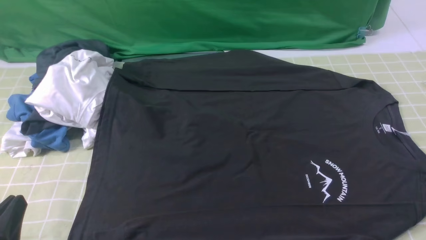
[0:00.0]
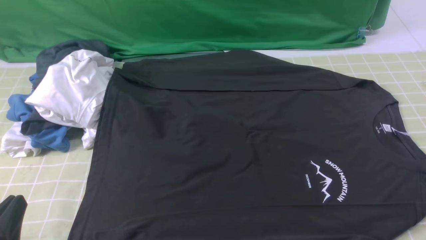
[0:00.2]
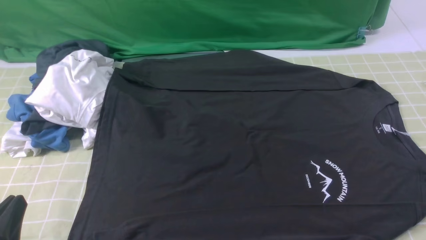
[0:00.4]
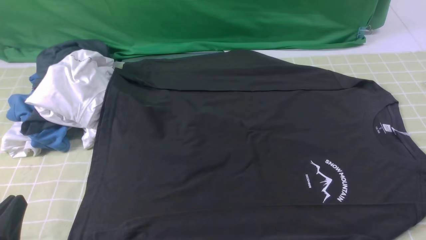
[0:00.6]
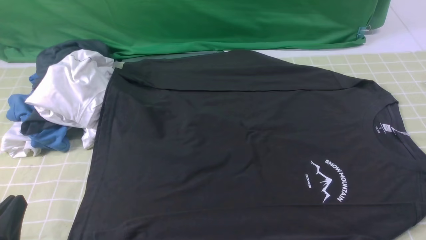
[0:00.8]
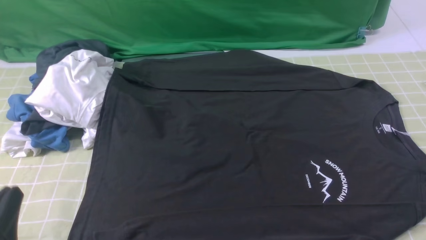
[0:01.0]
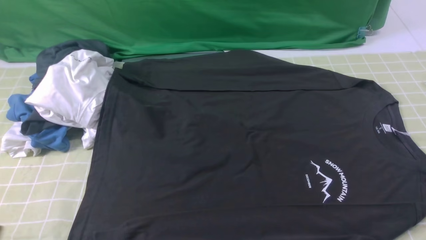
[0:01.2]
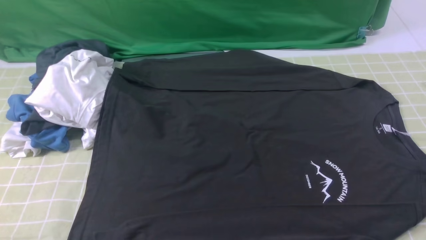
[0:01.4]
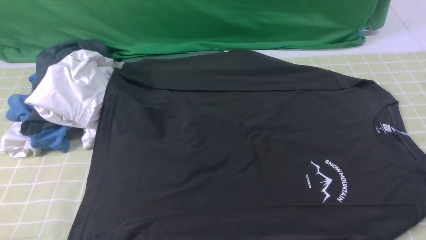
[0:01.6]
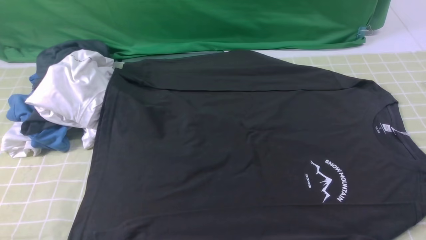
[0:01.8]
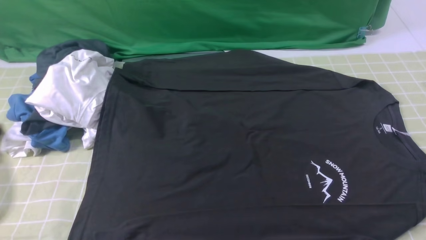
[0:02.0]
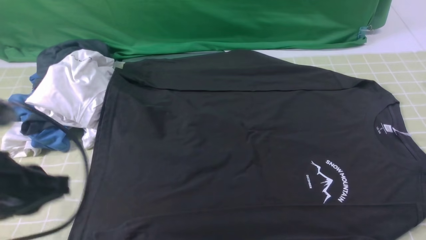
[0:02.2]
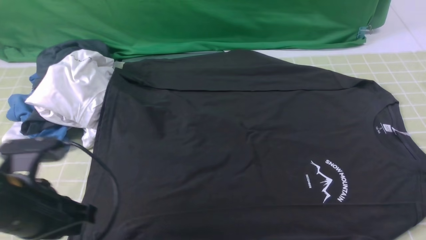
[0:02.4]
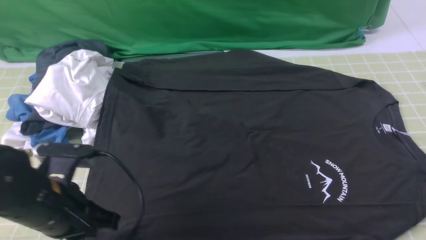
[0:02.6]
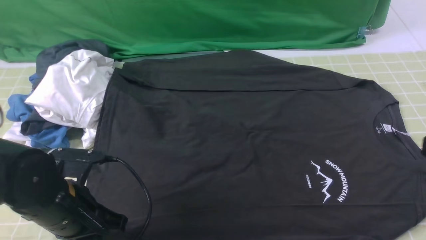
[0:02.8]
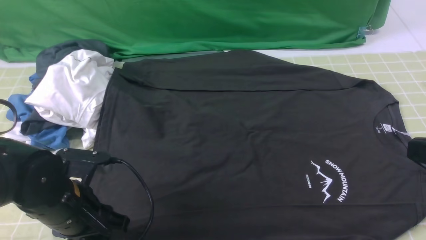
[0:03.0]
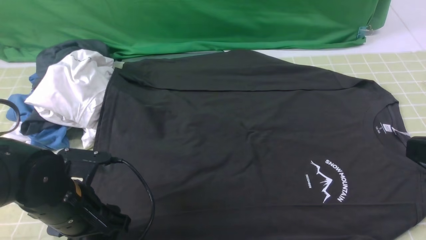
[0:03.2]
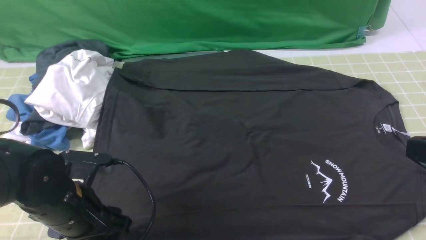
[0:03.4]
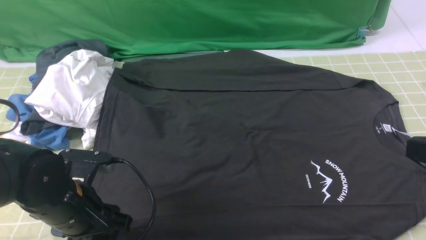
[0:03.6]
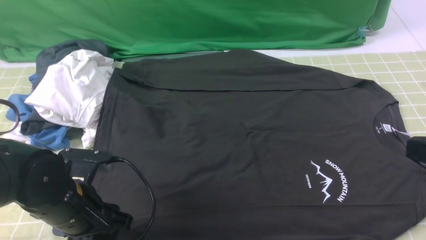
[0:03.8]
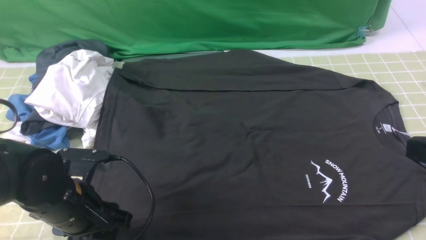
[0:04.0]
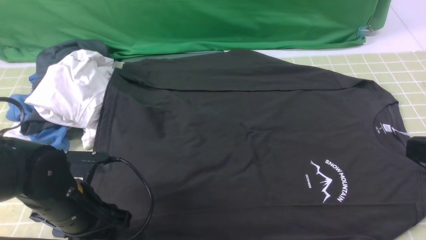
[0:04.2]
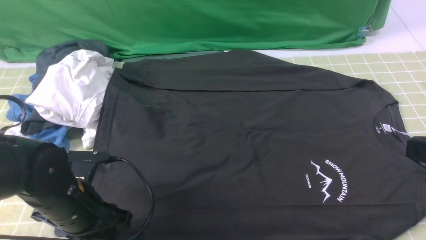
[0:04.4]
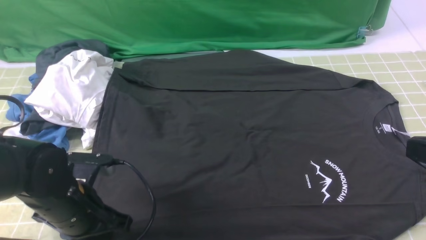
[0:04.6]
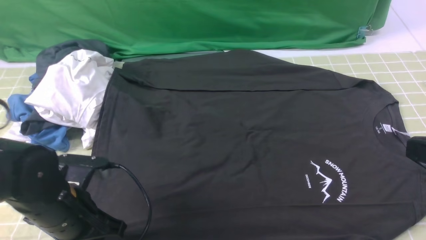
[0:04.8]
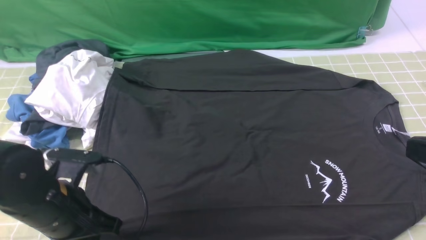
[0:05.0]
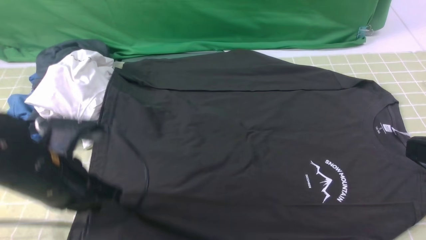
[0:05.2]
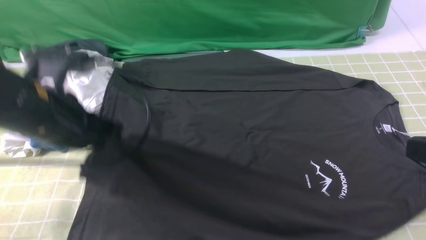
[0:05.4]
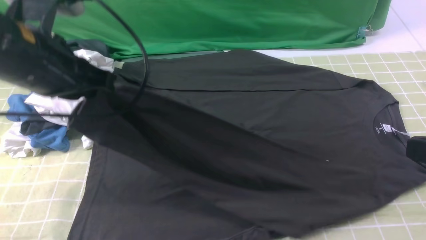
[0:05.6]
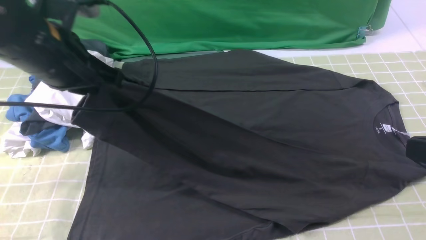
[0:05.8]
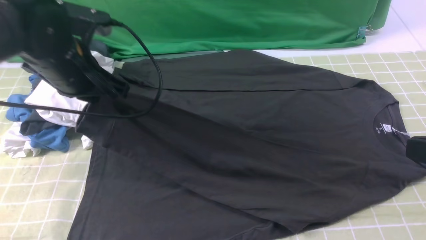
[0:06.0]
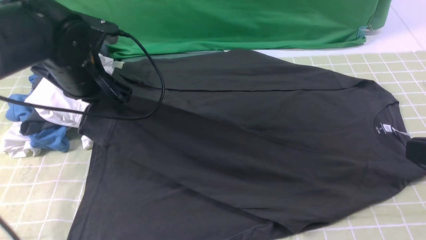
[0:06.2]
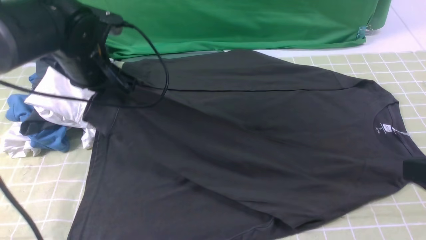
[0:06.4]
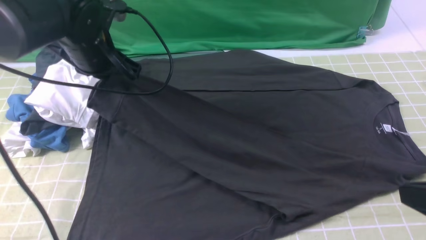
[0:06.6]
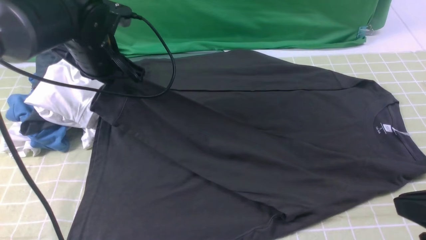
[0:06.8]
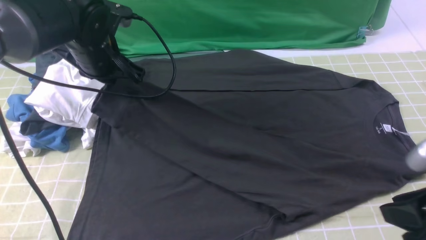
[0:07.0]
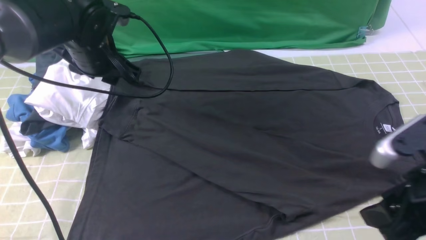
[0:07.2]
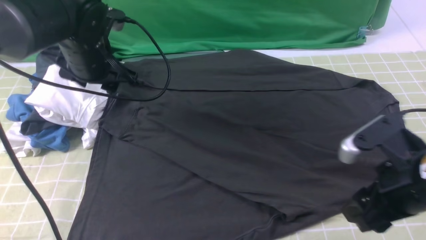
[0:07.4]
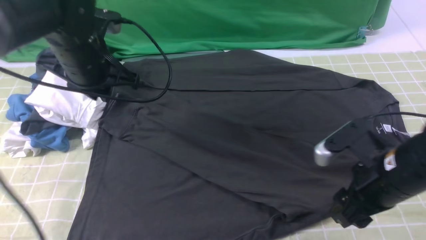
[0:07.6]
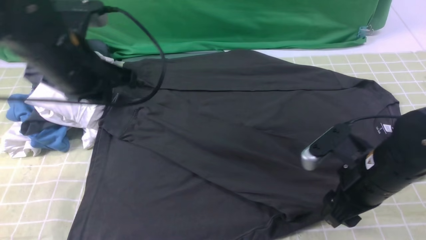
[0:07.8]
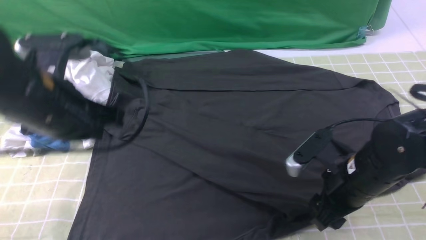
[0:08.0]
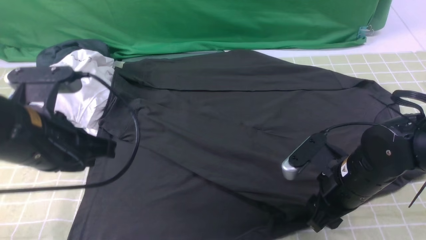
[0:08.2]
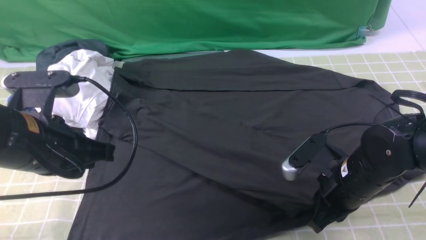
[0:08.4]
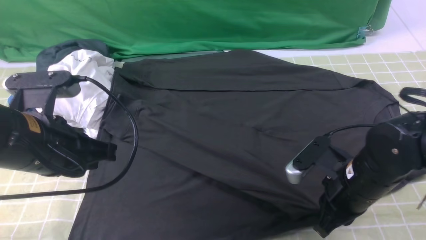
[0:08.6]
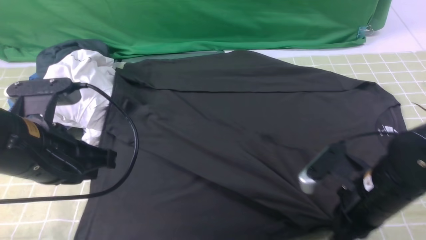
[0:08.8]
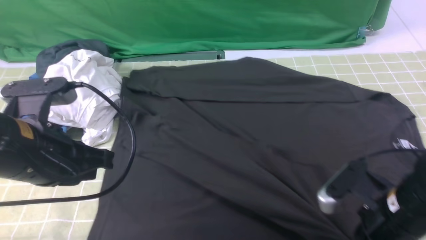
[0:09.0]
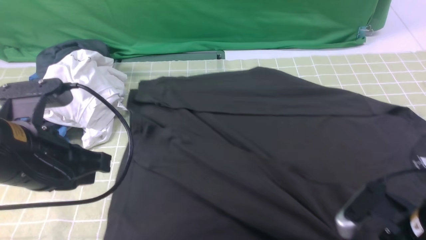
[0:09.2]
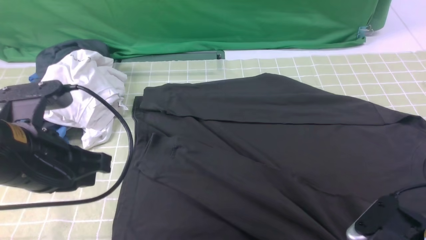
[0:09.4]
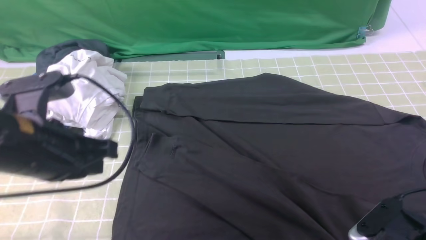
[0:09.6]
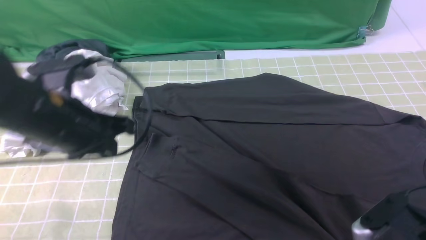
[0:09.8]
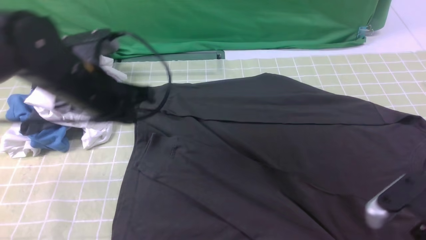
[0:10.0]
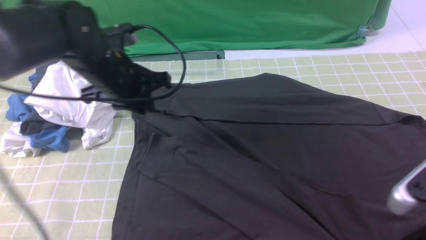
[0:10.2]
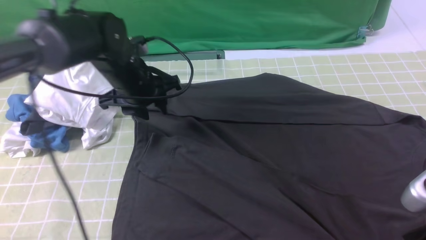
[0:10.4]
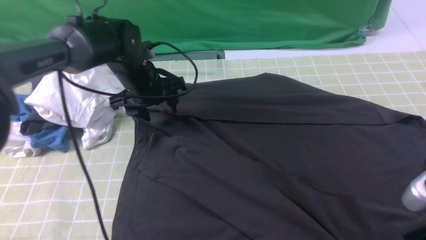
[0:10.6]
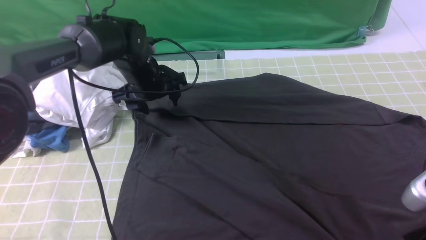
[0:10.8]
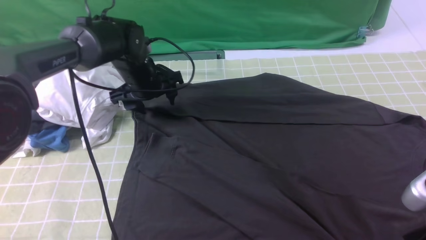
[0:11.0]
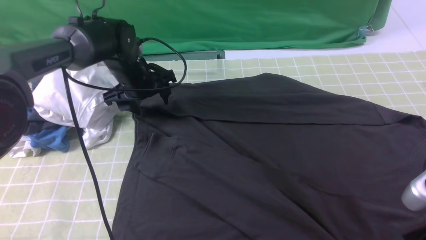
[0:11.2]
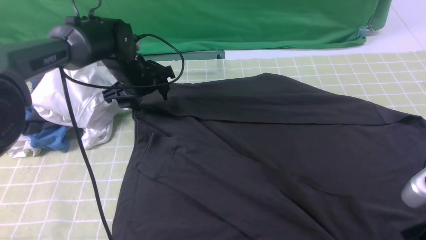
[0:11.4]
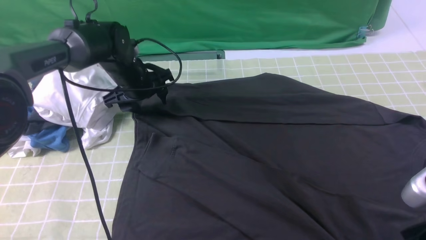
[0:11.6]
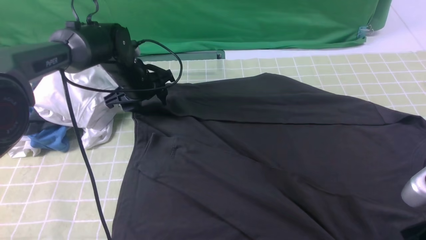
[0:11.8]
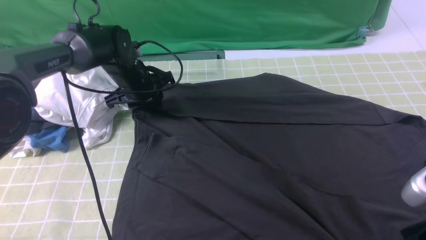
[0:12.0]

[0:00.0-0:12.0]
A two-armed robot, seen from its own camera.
Step, 0.0 to 4.6 s: use the left arm to clamp the cuff closest to it.
Step, 4.8 to 7.2 s: use the left arm to drag and place the cuff at the centered position on the left edge of the fabric.
0.0 to 1.6 s: The left gripper shifts about 10 cm upward.
1.6 to 3.0 s: The right gripper travels upward and to the left by some 10 cm, and closes its fingers. Meanwhile the left gripper heads forward and downward, covering approximately 20 cm, and opens up.
3.0 to 4.4 s: The grippers stay close to where they were, moving slightly.
4.4 to 6.0 s: The left gripper moves upward and forward, some 20 cm, and closes up.
6.0 to 7.6 s: The right gripper moves downward, forward and to the left, some 15 cm, and opens up.
7.6 to 9.0 s: The right gripper ends up some 5 cm from where it was, and closes up; the left gripper goes some 15 cm backward.
9.0 to 10.4 s: The right gripper shifts about 10 cm upward and backward, and opens up, while the left gripper shifts about 20 cm forward, and opens its fingers.
10.4 to 12.0 s: The left gripper travels forward and downward by about 10 cm.

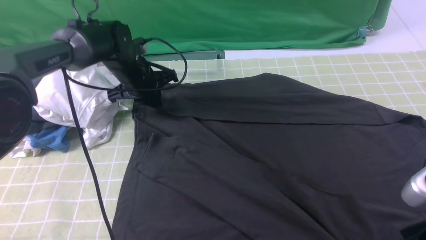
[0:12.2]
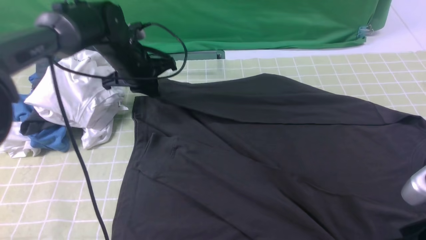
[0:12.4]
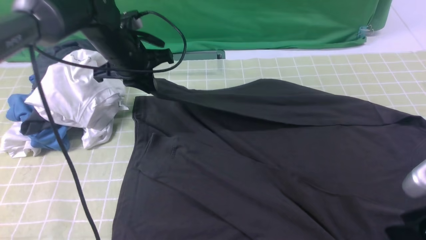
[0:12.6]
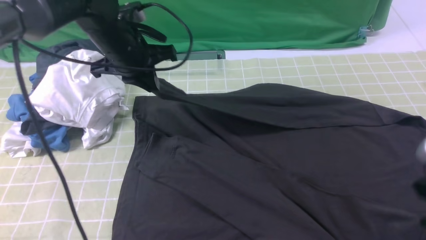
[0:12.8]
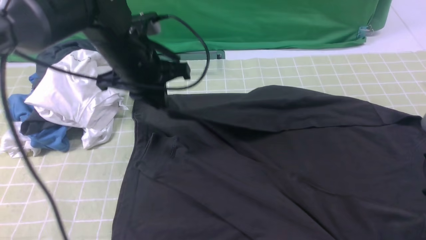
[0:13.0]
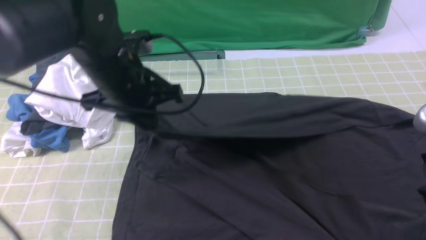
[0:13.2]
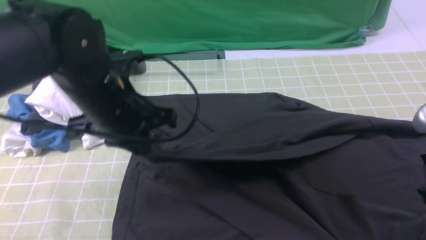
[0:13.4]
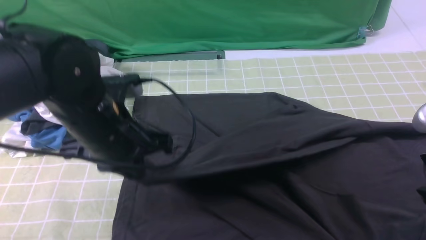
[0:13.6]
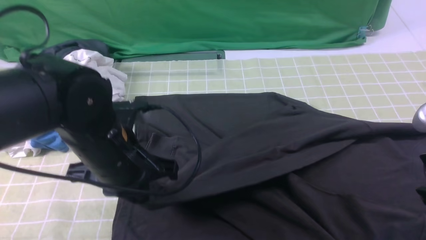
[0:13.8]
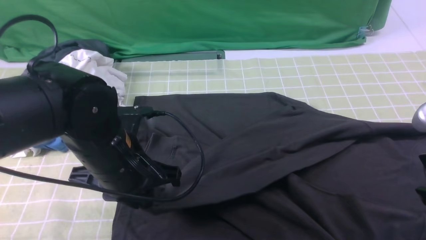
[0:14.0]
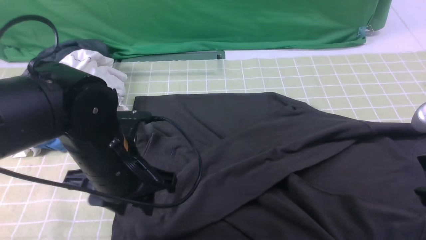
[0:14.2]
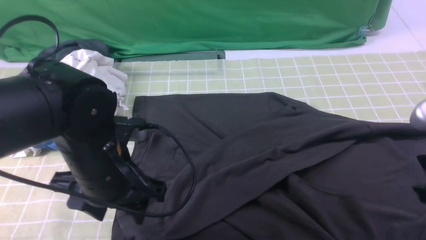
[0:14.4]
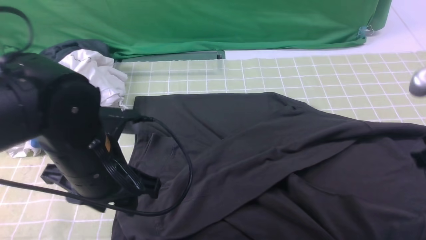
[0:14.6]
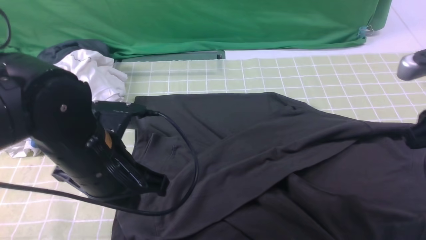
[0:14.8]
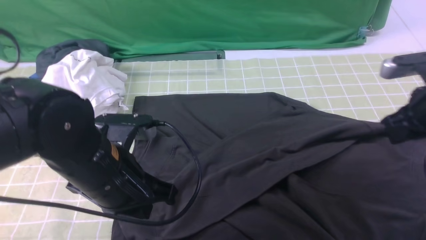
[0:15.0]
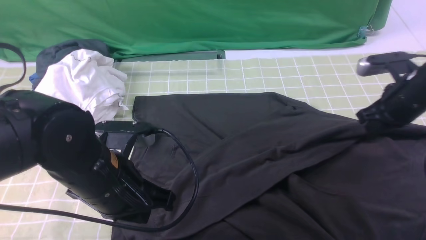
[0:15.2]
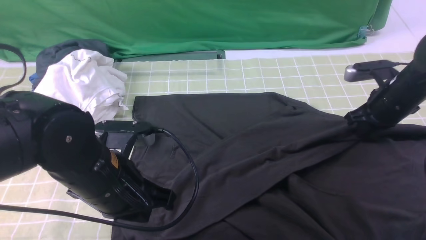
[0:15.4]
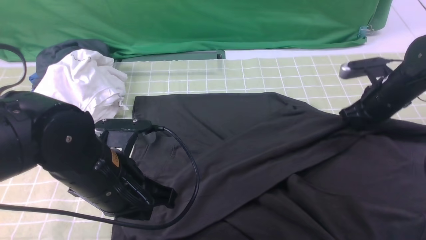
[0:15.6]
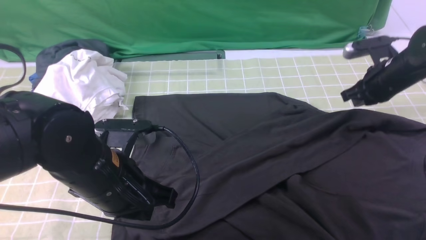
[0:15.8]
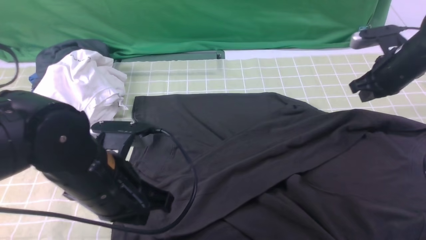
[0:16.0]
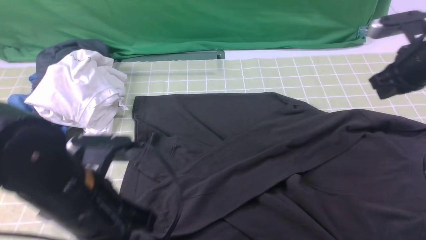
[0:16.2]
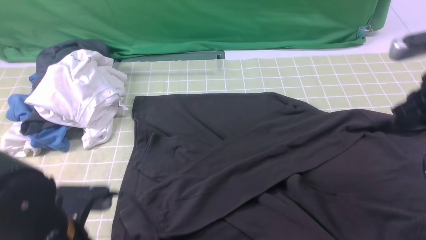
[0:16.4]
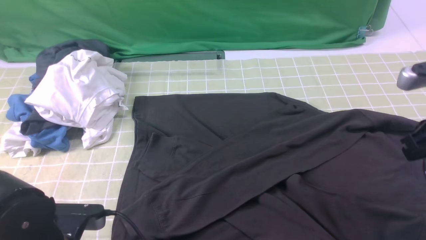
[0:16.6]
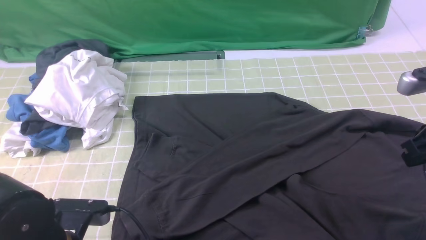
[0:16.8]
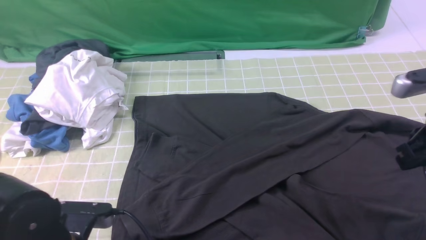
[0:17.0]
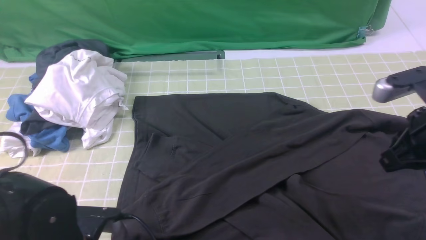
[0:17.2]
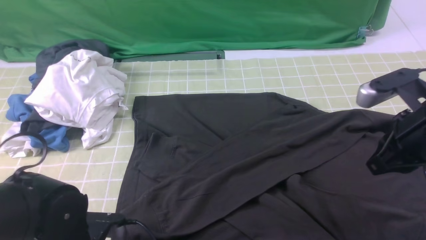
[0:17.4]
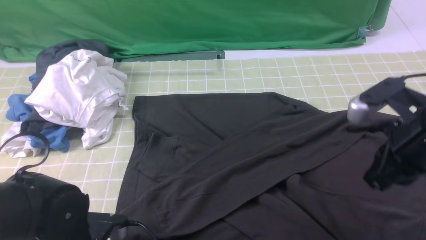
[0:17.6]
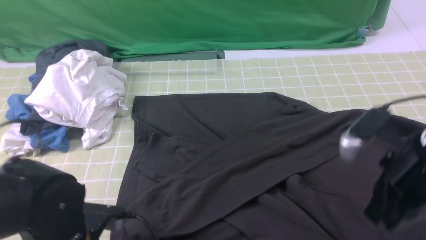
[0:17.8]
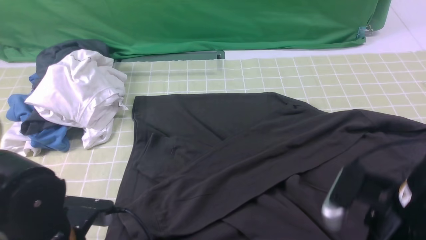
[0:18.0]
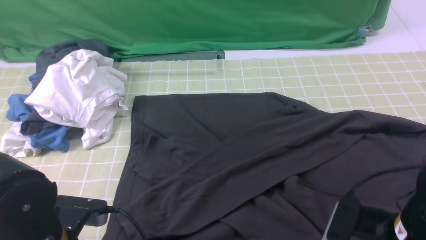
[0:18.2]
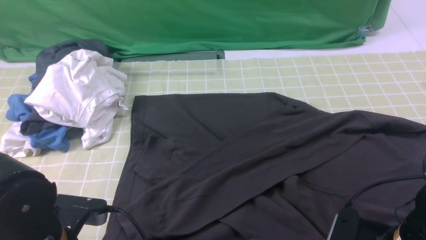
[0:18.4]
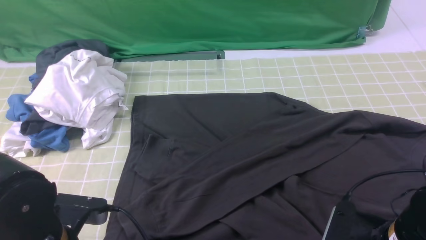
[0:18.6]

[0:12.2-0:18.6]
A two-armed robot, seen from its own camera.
Step, 12.4 to 14.2 s: use the left arm to drag and drop the cuff onto the cuff closest to the left arm.
12.2 to 13.8 s: The right gripper shifts by some 5 cm, and closes up; the left gripper is displaced backward by approximately 20 cm.
13.8 to 15.4 s: The right gripper moves forward and downward, some 25 cm, while the left gripper opens, then closes again.
15.4 to 17.0 s: The left gripper heads backward and downward, covering some 10 cm, and opens up. Meanwhile the right gripper is displaced backward and upward by roughly 15 cm.
17.0 to 18.6 s: The right gripper travels backward, downward and to the left by approximately 20 cm, and opens up, while the left gripper closes its fingers.
